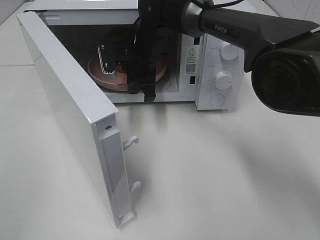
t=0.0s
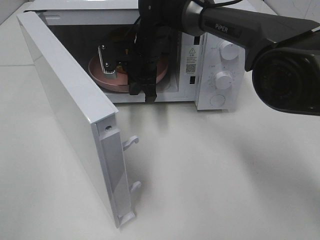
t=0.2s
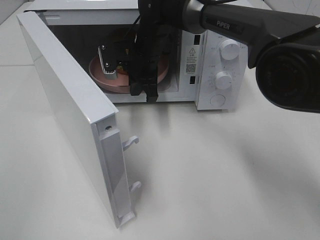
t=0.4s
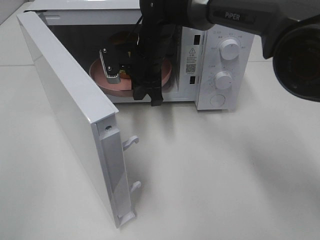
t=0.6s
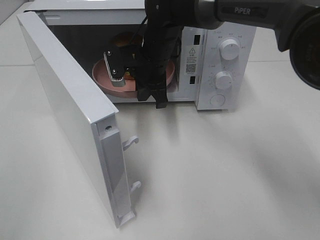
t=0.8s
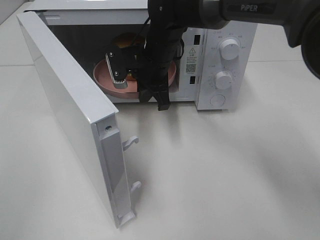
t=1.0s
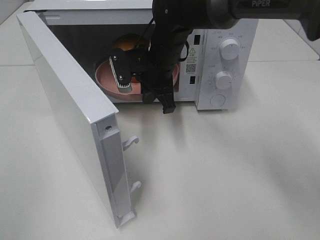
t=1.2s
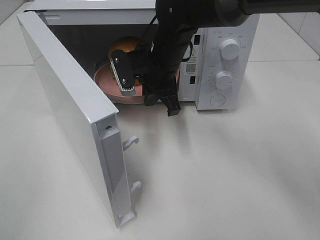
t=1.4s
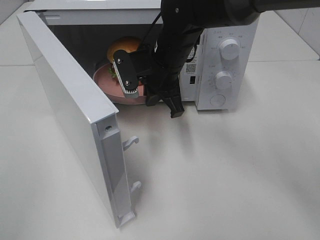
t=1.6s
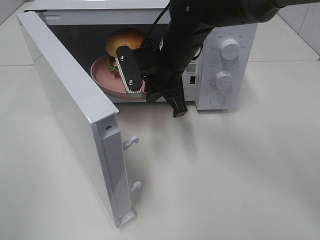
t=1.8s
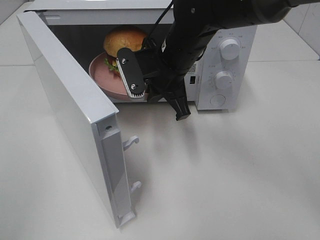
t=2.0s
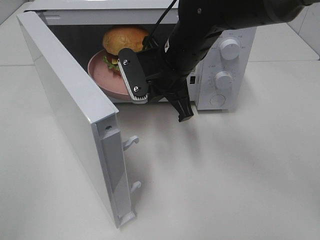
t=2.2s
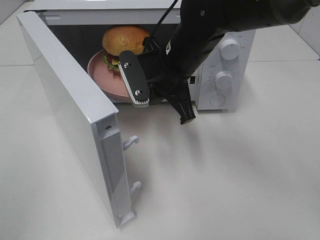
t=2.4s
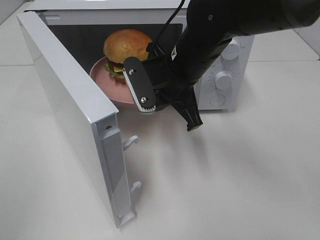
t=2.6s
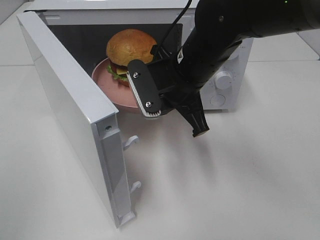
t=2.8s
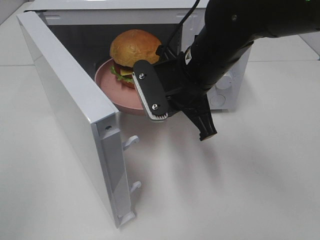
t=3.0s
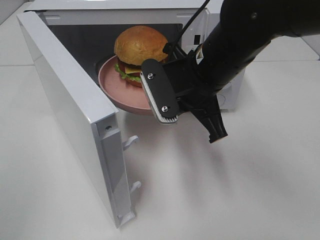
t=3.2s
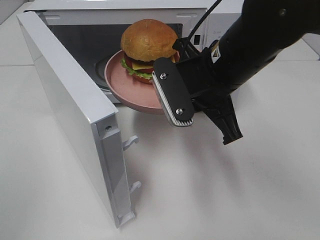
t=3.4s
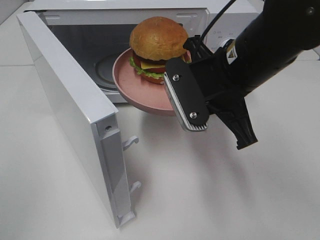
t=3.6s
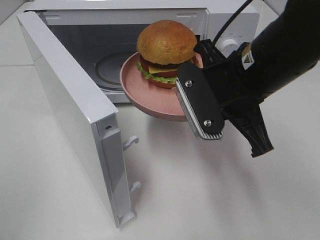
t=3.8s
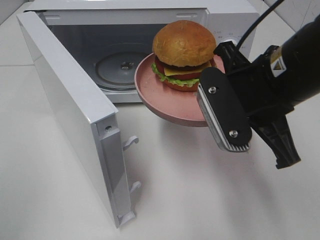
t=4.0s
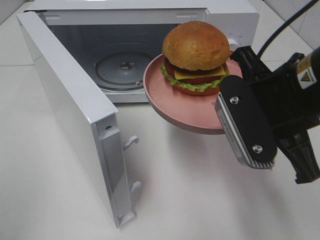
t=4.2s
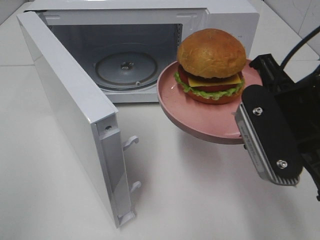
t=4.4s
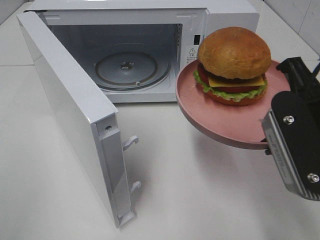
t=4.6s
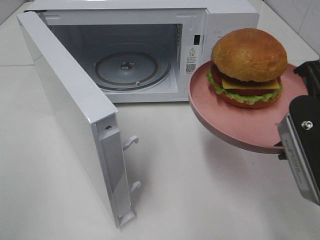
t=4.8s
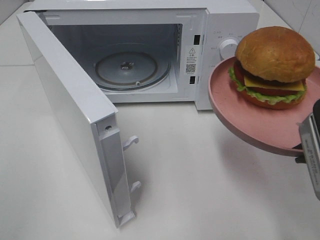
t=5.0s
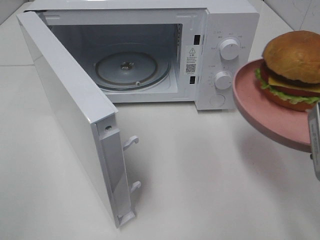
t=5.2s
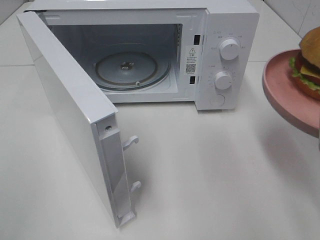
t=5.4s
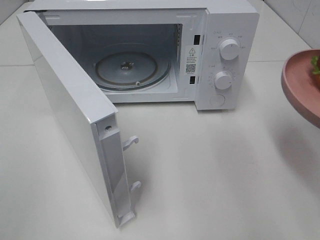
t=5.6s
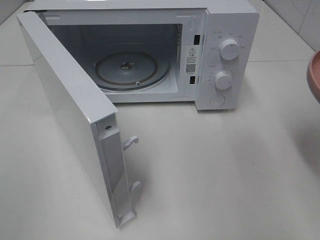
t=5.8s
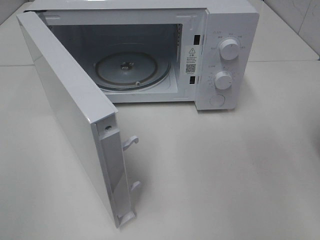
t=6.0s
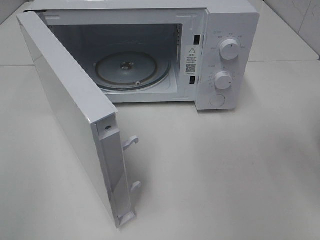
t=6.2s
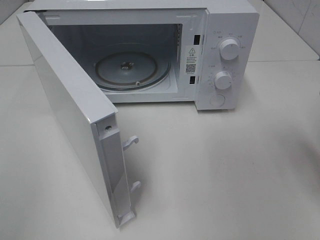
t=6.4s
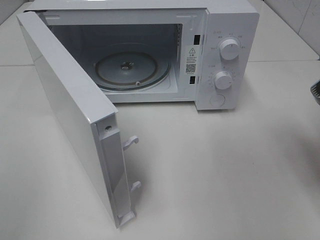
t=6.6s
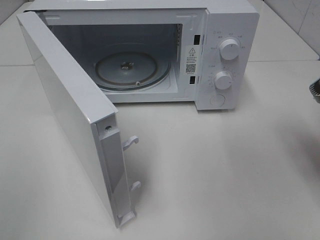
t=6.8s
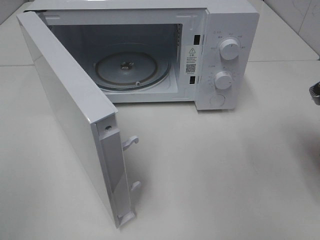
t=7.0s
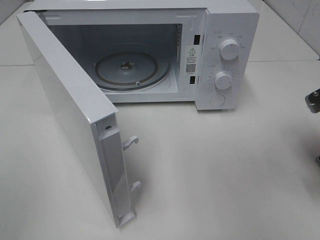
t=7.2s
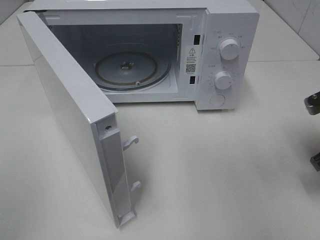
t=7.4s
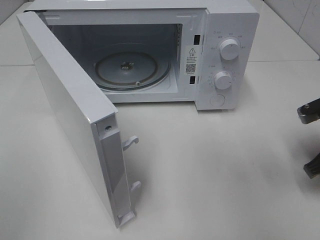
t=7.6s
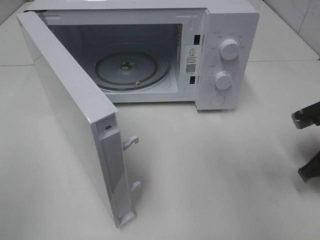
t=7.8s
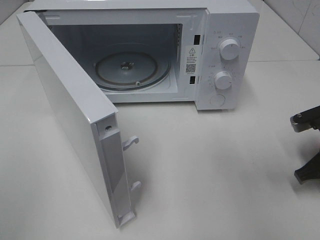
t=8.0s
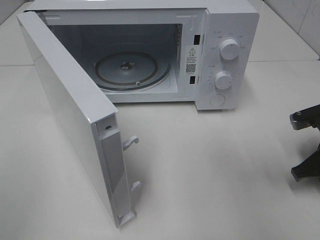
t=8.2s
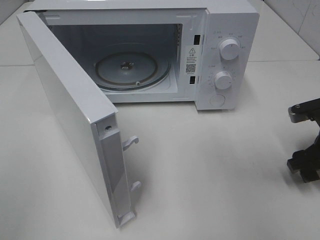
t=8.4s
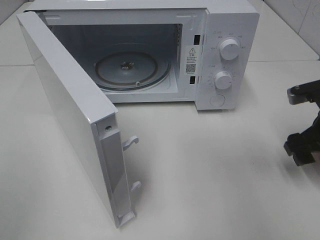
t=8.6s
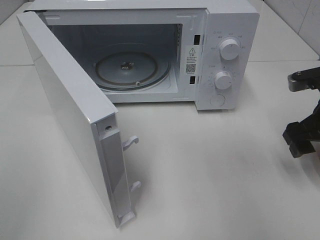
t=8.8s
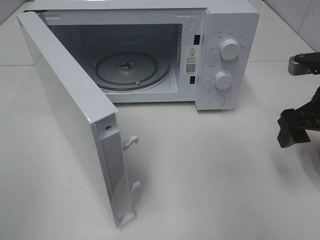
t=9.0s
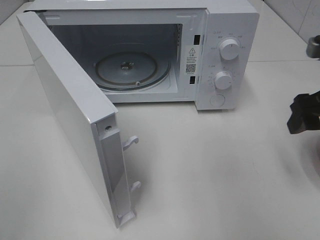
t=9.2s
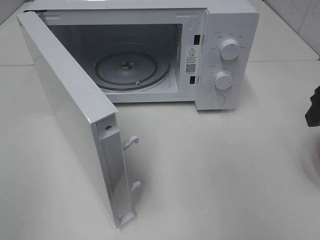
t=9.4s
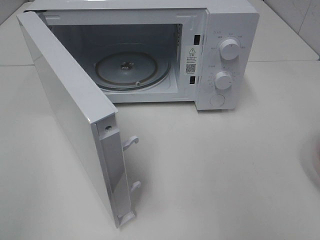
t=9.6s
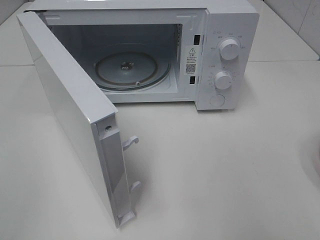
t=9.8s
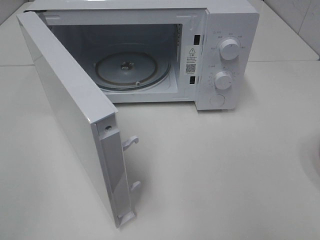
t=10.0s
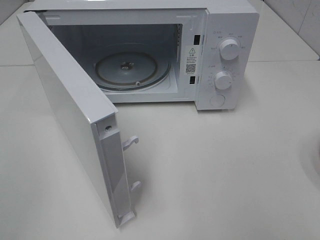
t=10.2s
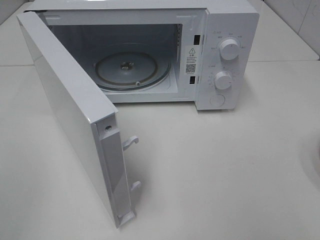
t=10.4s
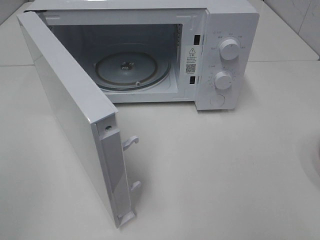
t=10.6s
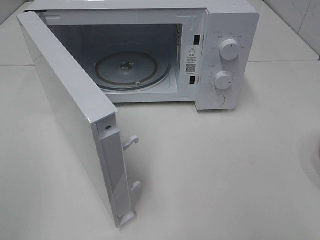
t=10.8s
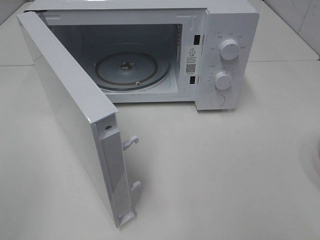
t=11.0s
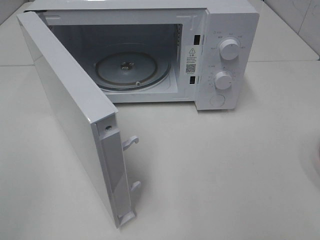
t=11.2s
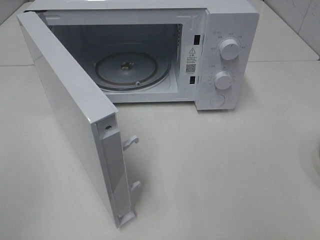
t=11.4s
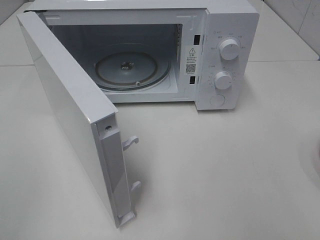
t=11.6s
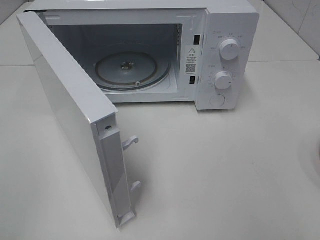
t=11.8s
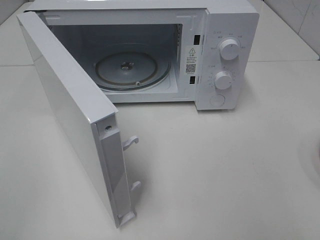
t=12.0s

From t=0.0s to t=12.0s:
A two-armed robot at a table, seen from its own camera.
Task of the whole recording: Heat the burger.
Step, from t=0.0s to t=8.0s: Right hand: place the plate on the table.
From t=0.0s to t=1.6s: The right gripper shifts some 5 cm backward.
From t=1.6s to t=3.0s: The right gripper heads backward, covering roughly 10 cm.
From t=3.0s to t=4.4s: The right gripper goes about 15 cm backward and to the right.
From t=4.4s to t=6.0s: The right gripper travels to the right by roughly 10 cm.
From t=6.0s to t=7.6s: The right gripper moves downward and forward, some 15 cm.
From t=7.6s to t=9.0s: The right gripper goes approximately 5 cm upward, and opens.
From t=9.0s to t=10.4s: The right gripper heads backward and upward, covering about 25 cm.

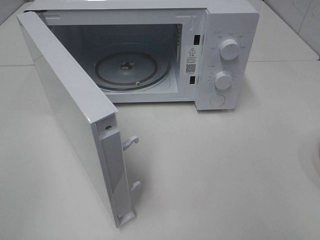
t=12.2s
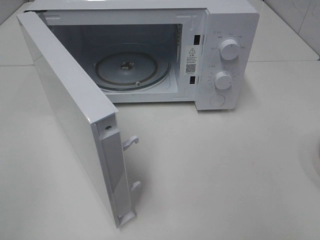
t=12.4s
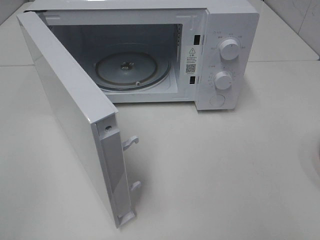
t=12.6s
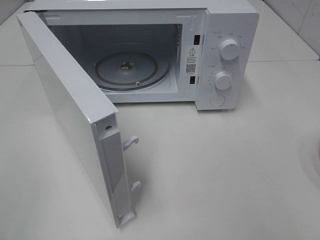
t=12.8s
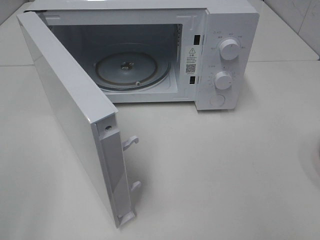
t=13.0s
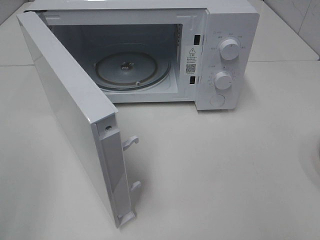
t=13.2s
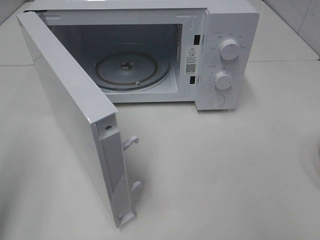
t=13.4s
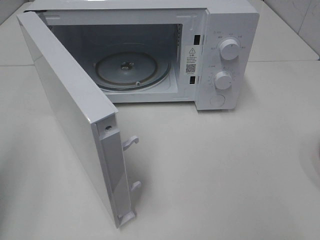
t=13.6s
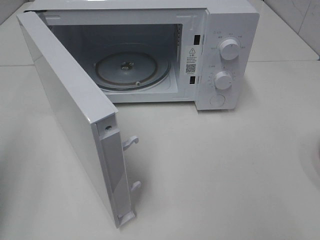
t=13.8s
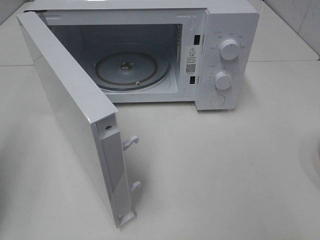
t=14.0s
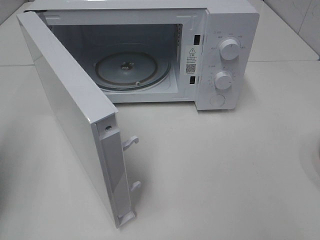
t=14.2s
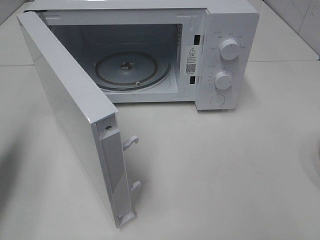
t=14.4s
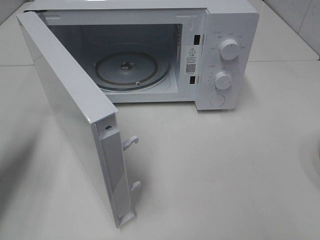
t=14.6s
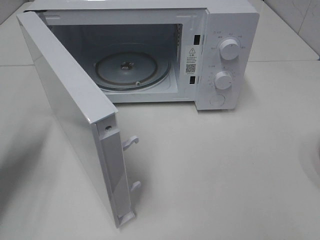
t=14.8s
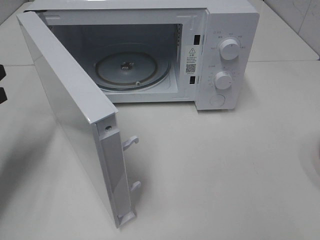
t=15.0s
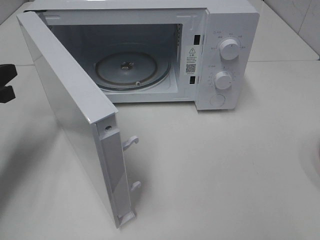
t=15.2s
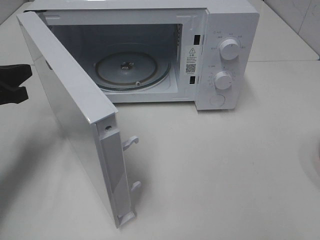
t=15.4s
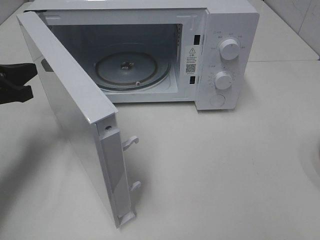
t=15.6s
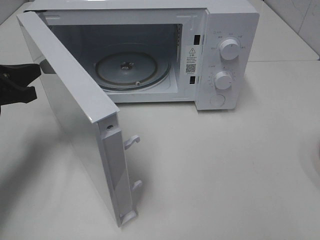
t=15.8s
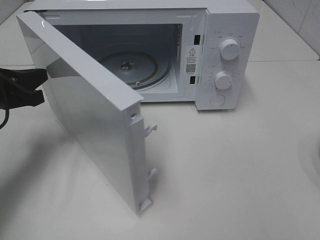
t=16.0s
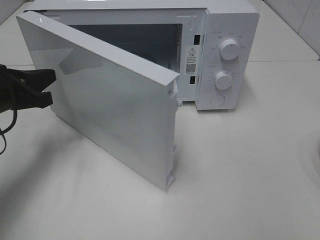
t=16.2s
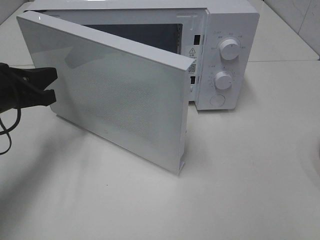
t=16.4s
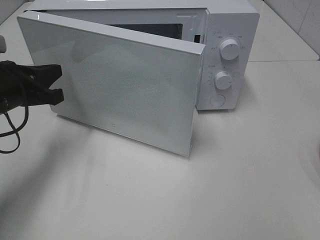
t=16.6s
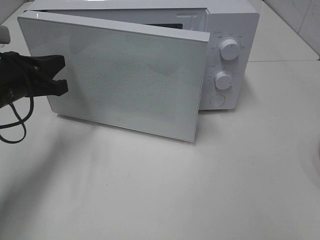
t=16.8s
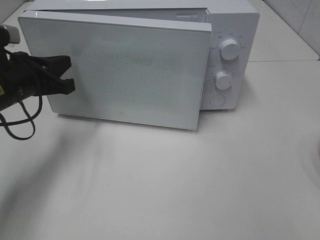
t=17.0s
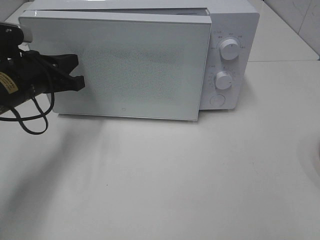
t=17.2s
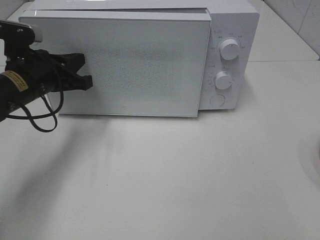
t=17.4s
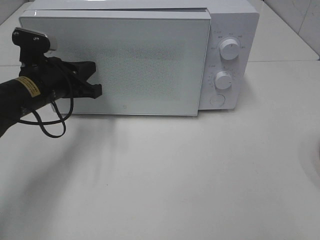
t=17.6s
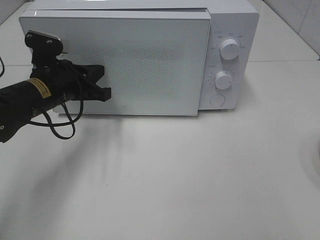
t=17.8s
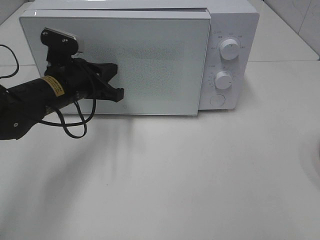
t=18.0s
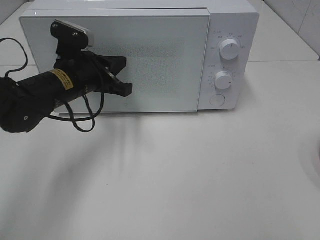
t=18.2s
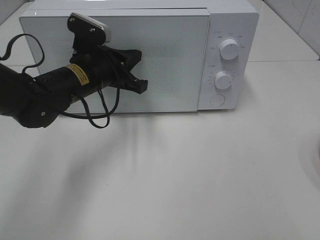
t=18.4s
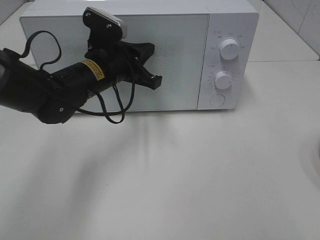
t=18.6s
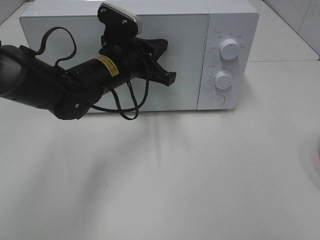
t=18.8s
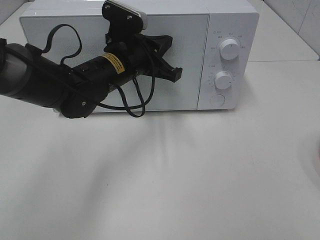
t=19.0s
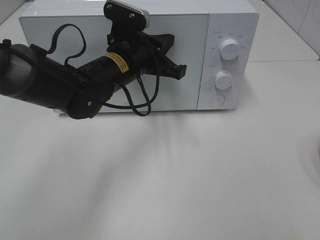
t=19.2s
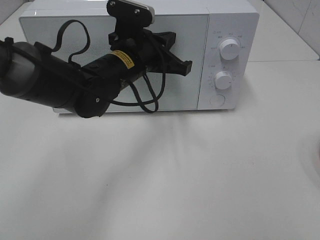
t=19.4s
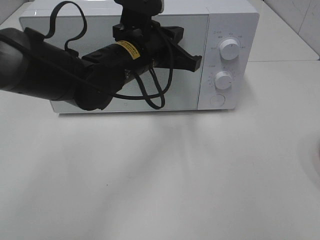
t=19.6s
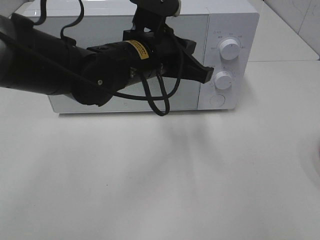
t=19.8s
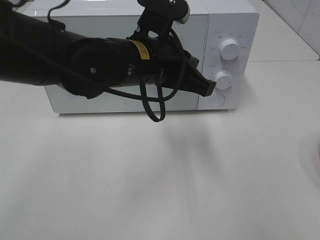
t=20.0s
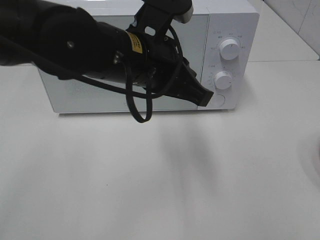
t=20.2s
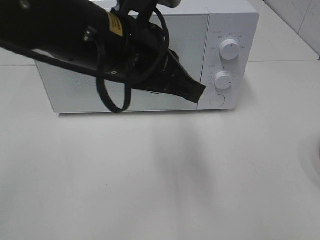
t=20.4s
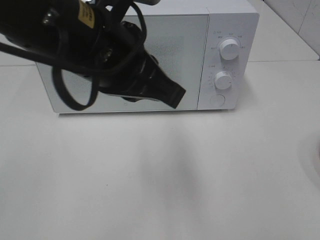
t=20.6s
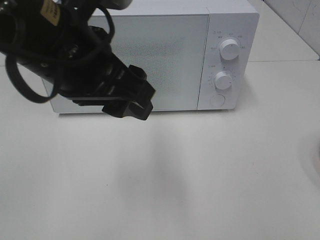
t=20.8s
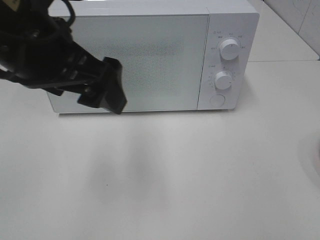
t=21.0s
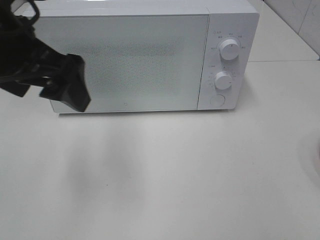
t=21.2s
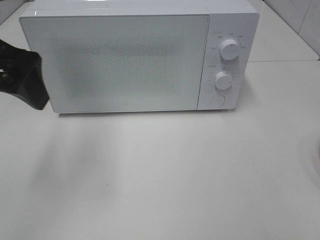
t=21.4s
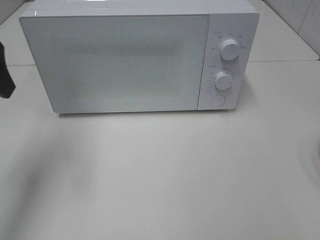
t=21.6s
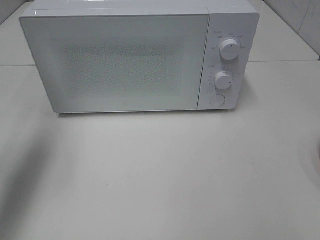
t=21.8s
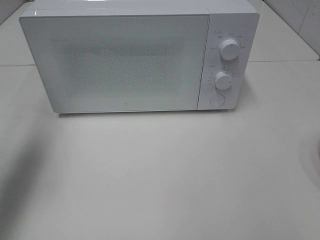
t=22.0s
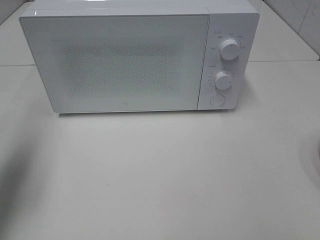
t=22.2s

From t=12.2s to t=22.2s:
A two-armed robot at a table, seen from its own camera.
Task of the whole recording: Heat the burger.
Step, from t=12.2s to t=18.6s: Left hand: close the microwave door.
From t=12.2s to t=13.6s: The left gripper heads forward, covering approximately 10 cm, and closes.
From t=13.6s to t=15.0s: The left gripper heads forward and downward, covering approximately 20 cm.
From t=15.0s to t=16.4s: The left gripper travels to the right by about 5 cm.
From t=16.4s to t=18.0s: The left gripper goes some 10 cm to the right and forward.
From t=18.0s to t=19.4s: The left gripper is displaced to the right by about 10 cm.
From t=19.4s to t=20.8s: The left gripper travels backward and upward by about 20 cm, and opens.
From t=20.8s to t=22.2s: The left gripper moves to the left, about 25 cm.
